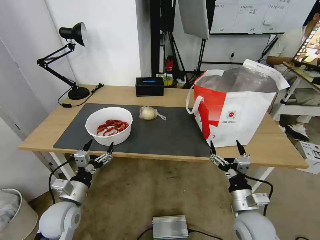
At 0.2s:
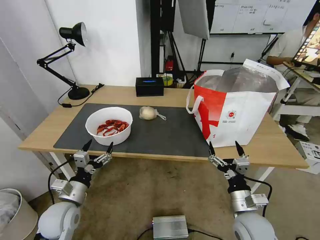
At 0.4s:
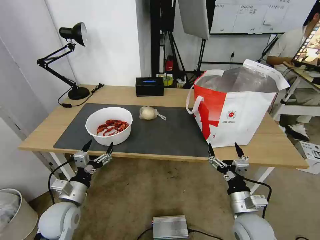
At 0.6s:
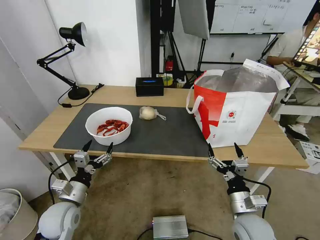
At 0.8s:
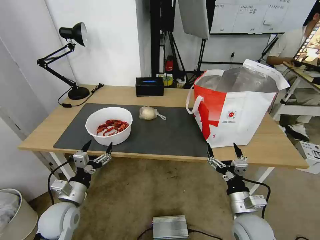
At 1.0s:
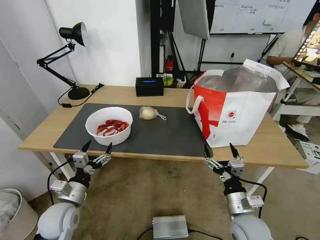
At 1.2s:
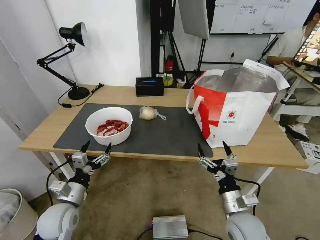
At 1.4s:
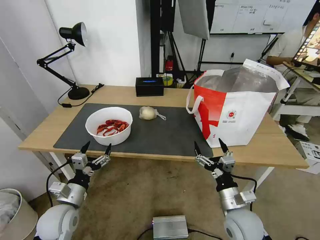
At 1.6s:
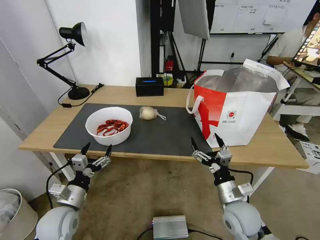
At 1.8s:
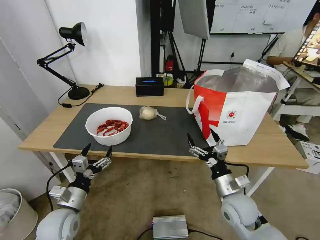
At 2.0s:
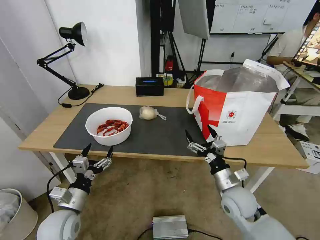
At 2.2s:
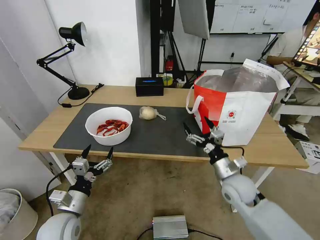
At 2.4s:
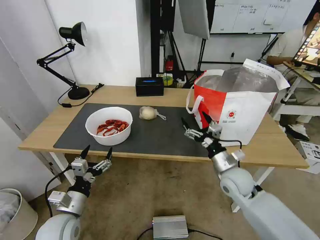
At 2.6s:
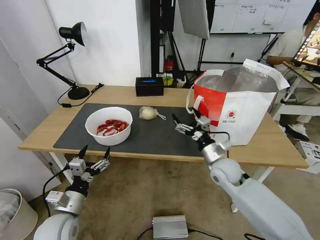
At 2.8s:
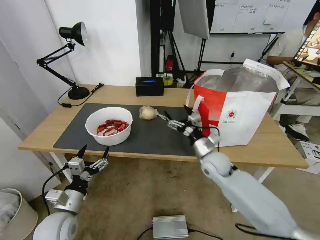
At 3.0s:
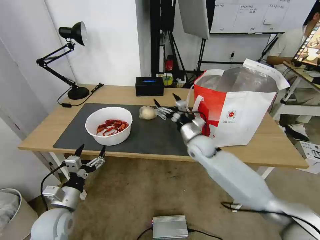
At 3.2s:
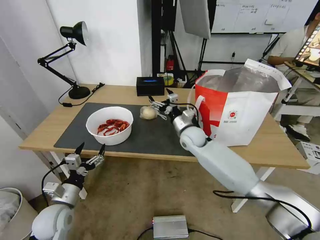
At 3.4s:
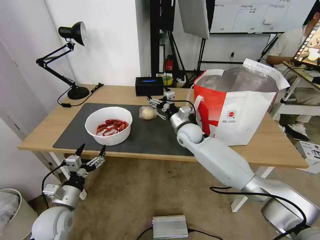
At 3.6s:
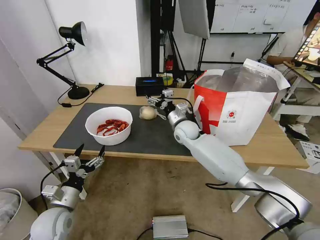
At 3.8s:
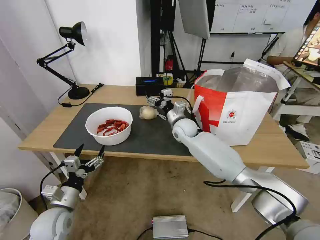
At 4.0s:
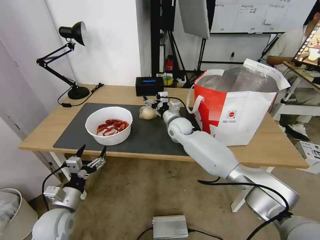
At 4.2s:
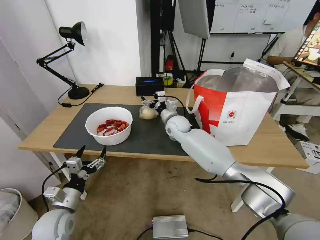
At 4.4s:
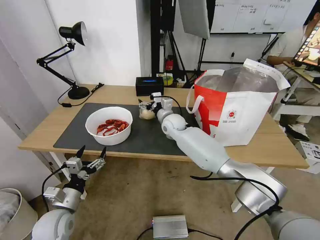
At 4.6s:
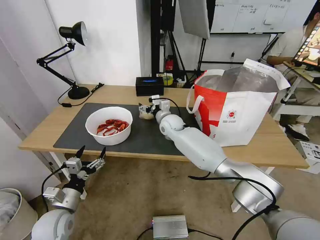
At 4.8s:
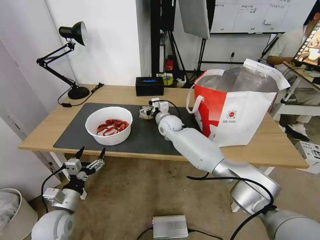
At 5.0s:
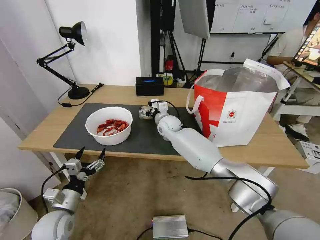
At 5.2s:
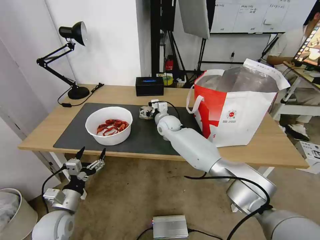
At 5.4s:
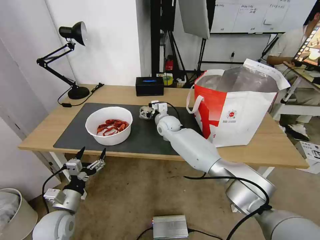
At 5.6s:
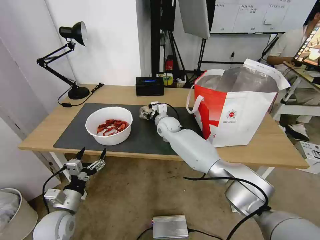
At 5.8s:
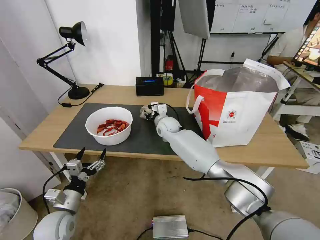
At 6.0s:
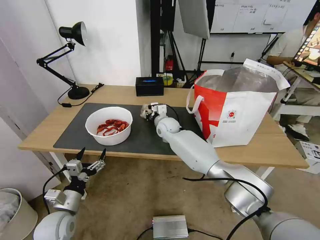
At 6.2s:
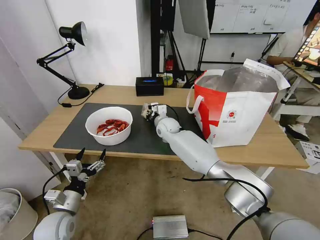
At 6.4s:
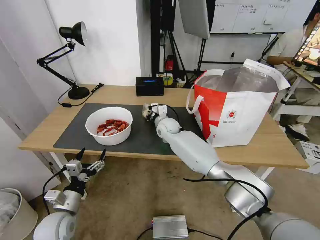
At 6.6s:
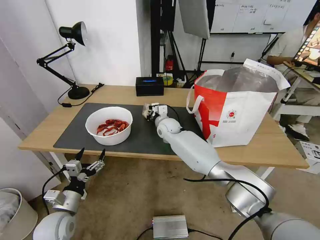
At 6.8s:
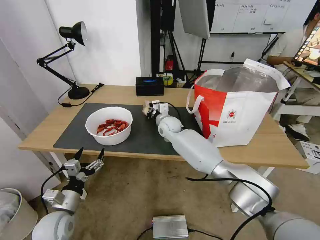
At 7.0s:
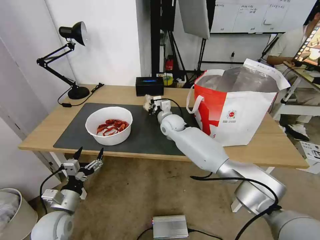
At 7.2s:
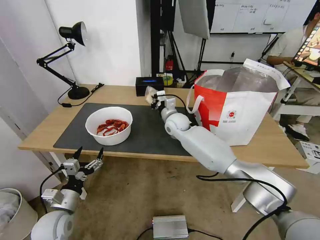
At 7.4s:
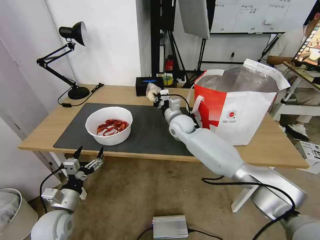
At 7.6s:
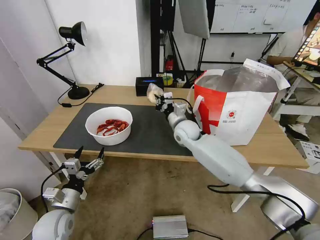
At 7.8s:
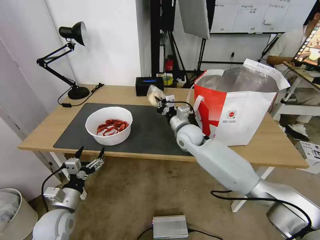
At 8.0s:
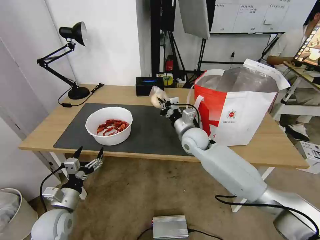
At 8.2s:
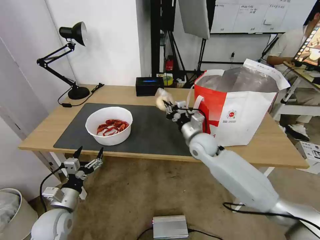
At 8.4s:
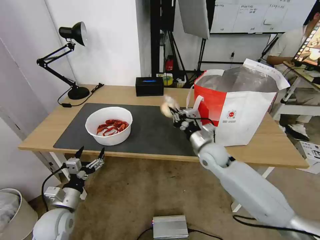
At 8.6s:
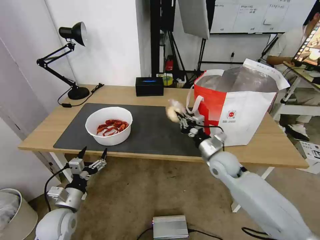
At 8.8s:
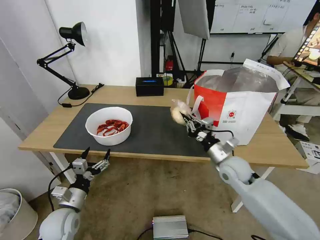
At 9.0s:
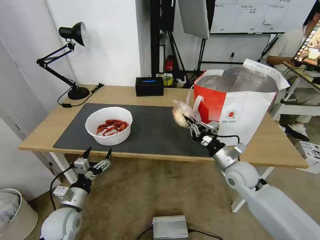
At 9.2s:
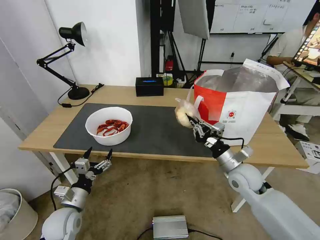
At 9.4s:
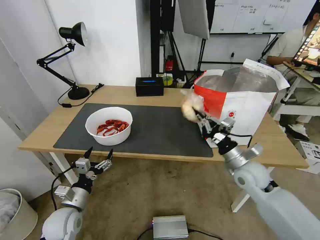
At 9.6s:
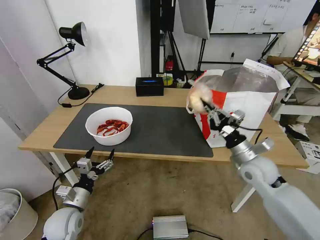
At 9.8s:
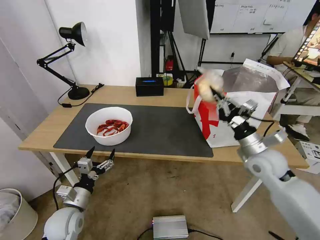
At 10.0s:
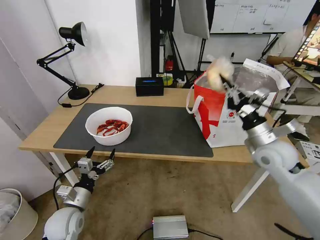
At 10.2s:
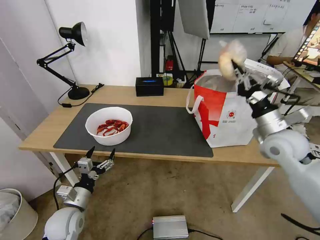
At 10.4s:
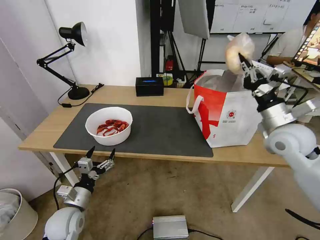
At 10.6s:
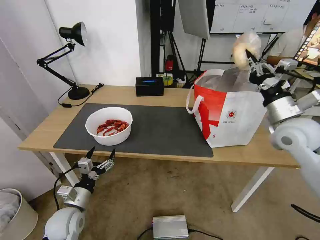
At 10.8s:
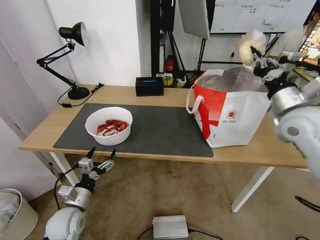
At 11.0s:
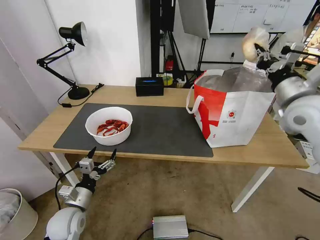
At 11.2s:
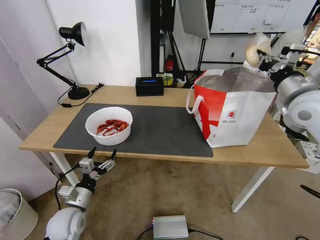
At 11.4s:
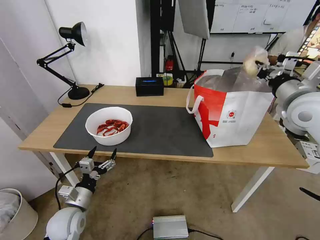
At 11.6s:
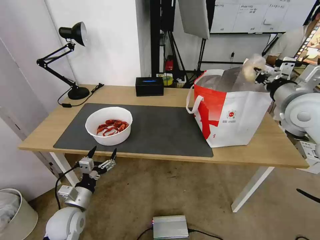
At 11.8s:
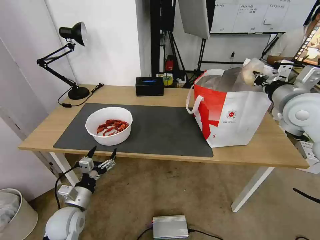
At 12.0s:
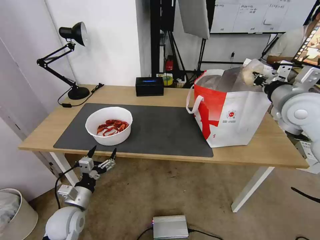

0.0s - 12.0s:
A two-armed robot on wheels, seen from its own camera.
Task of the whole recording: Pick up the trash from the table and place it into the takeout bag.
0.0s - 1.6s: The grippers make only small movements.
1.6s - 3.0s: The right gripper goes some 20 cm forward.
3.0s - 4.4s: The right gripper shifts roughly 15 cm forward and to the left.
4.4s - 6.0s: The right gripper closes up.
6.0s - 7.6s: The right gripper shifts about 10 cm to the right and backward.
7.6s - 9.0s: The right gripper is displaced to the right and backward by approximately 25 cm.
9.0s - 10.4s: The right gripper shifts approximately 20 cm upward and to the right.
10.4s - 12.0s: The right gripper heads upward, covering about 10 cm.

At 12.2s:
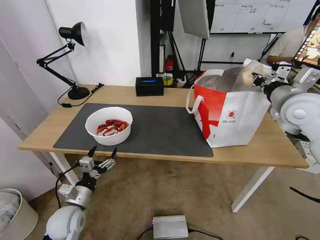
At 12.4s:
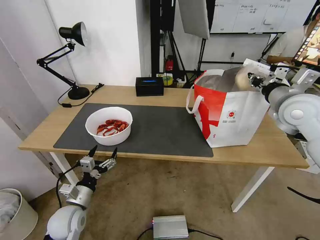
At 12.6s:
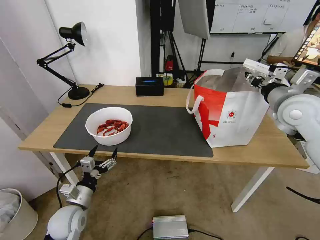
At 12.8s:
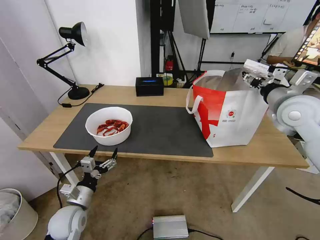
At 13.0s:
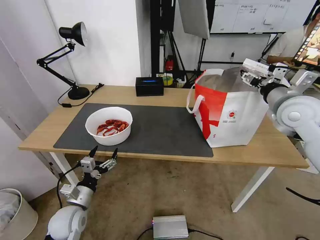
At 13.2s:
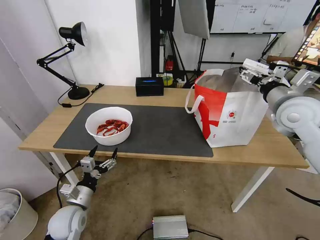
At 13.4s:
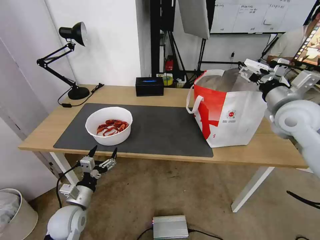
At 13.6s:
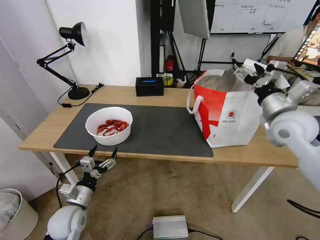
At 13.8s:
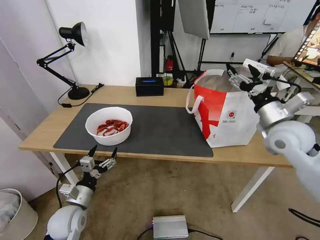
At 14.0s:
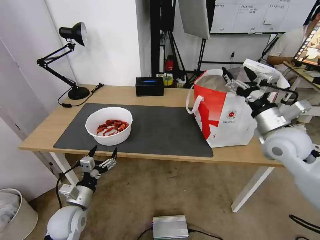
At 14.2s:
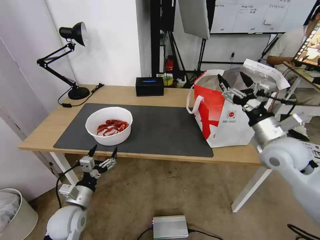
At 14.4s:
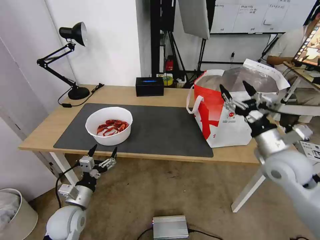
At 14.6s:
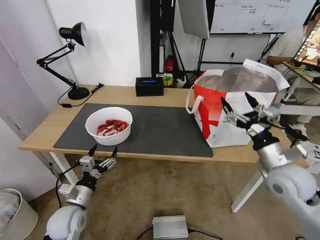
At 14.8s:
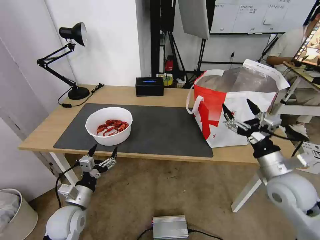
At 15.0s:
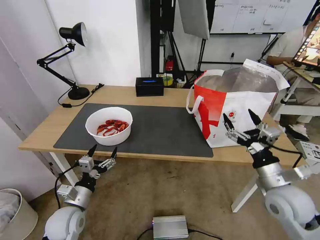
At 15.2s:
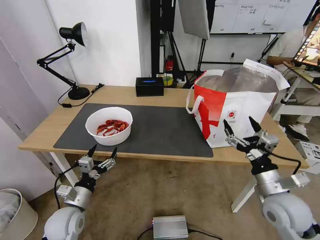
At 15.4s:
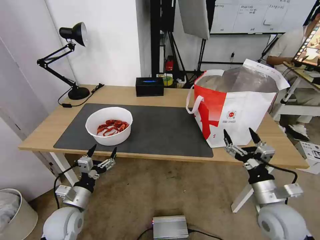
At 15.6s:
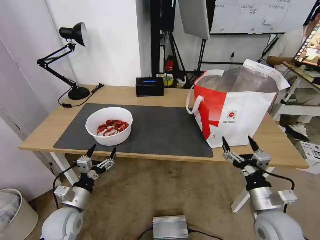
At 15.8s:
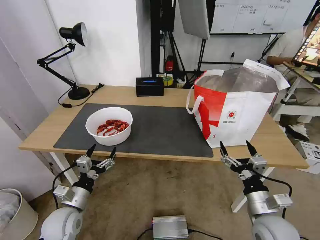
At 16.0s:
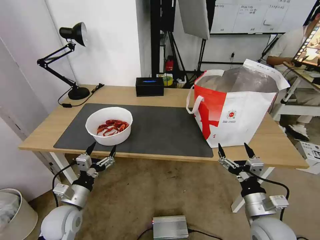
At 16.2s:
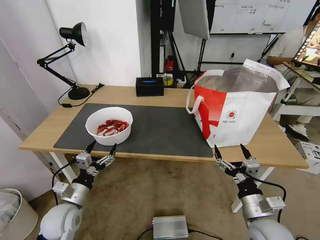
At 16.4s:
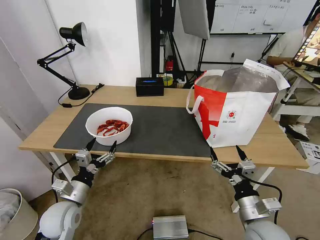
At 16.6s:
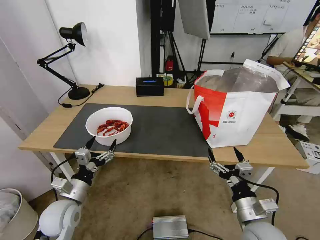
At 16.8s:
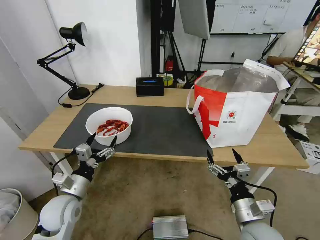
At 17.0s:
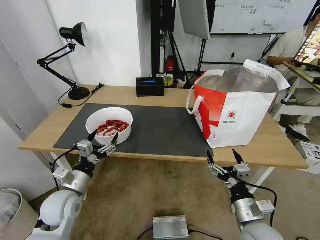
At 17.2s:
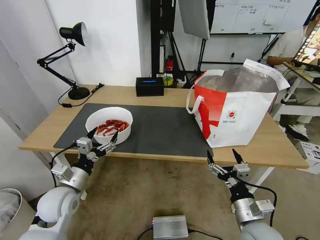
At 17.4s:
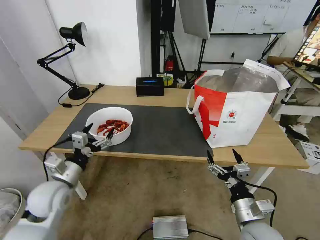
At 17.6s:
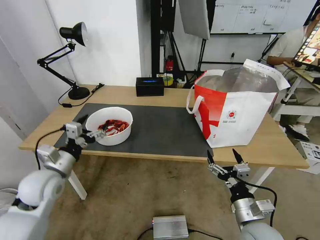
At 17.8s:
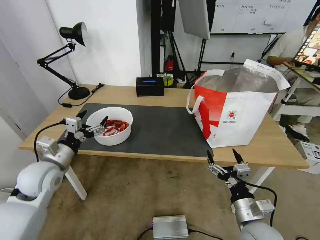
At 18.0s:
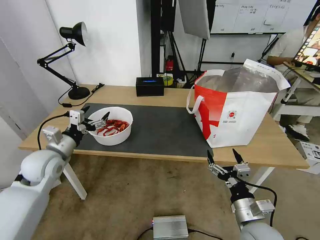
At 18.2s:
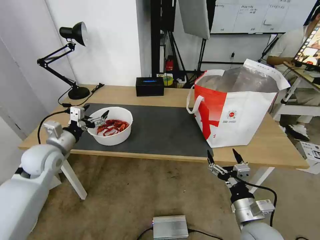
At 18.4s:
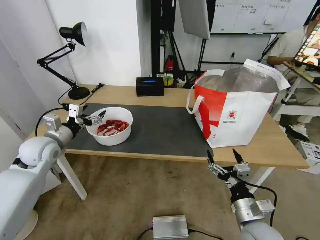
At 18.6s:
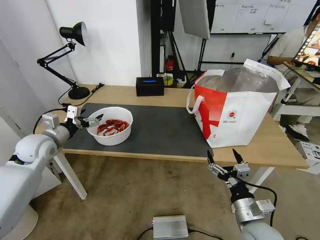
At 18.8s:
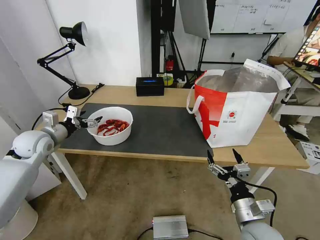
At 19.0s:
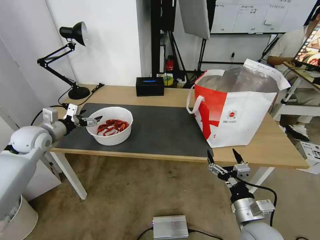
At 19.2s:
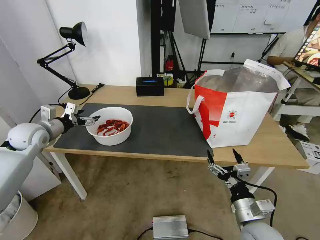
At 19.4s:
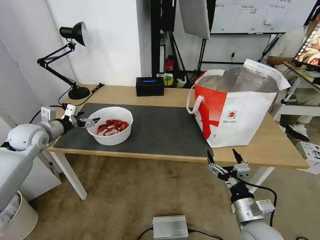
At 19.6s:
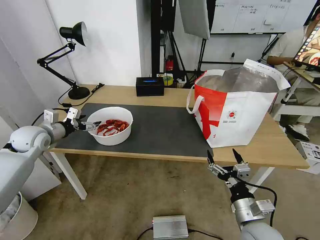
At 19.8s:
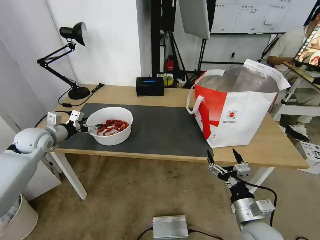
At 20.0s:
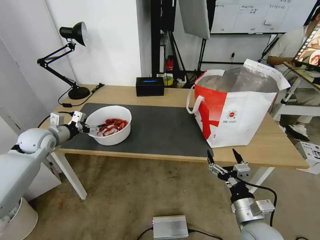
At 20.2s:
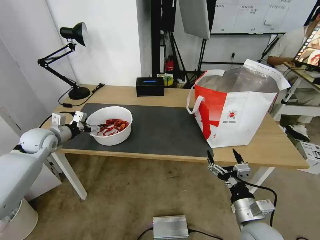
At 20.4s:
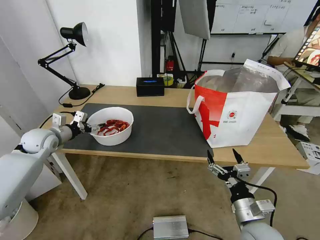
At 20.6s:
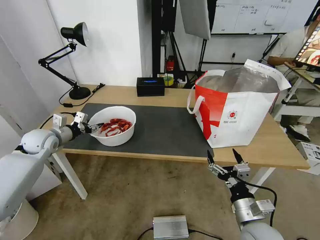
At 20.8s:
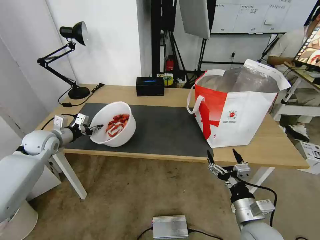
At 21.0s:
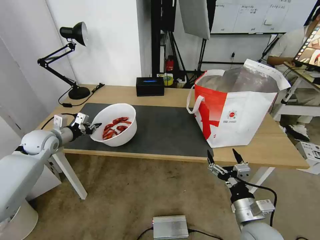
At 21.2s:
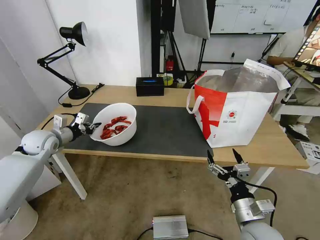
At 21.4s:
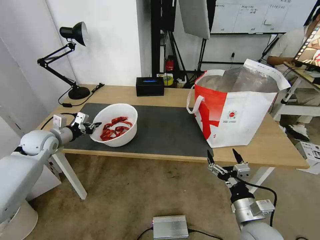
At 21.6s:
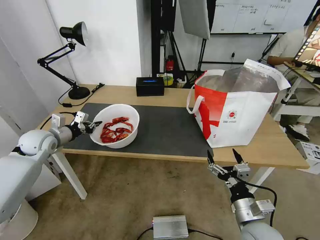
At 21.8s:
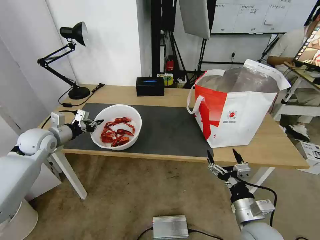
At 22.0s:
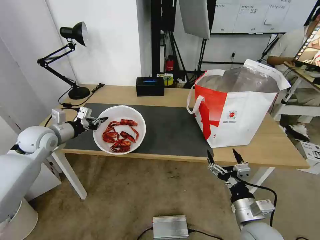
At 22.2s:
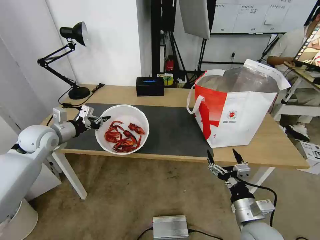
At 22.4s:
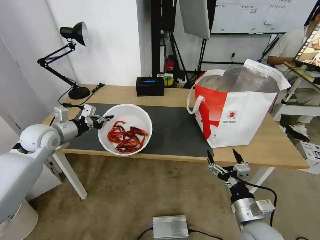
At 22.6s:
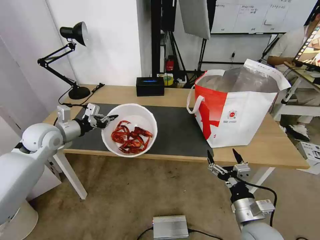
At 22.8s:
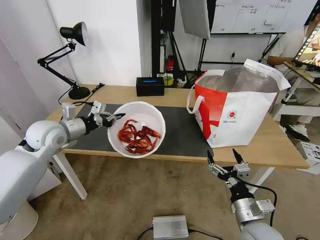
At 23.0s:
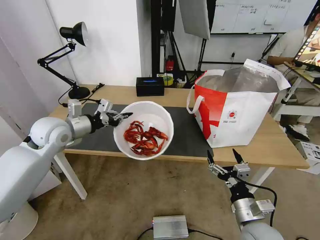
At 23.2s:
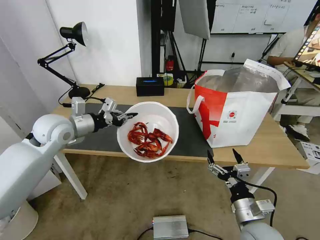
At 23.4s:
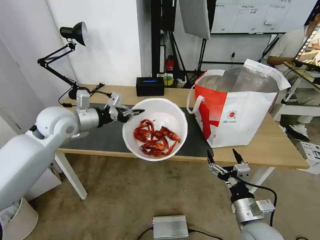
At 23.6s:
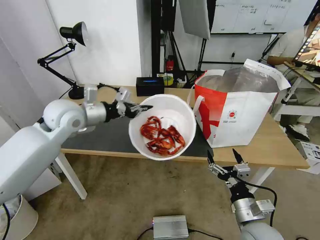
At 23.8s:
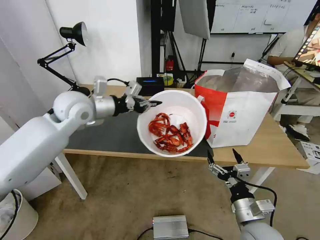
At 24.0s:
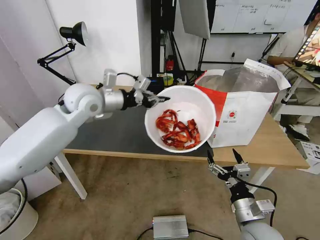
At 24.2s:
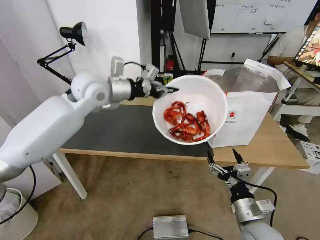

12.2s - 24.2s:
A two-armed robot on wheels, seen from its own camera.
Task of the whole recording: Pick up the trash from the table and place it into the takeout bag.
12.2s - 13.8s: The right gripper moves downward, some 5 cm, and opens.
13.8s - 15.2s: The right gripper travels backward and downward by some 20 cm.
15.2s - 16.6s: The right gripper moves to the left and backward, roughly 10 cm.
16.6s - 18.2s: The left gripper moves forward, upward and to the left, roughly 20 cm.
18.2s - 19.8s: The left gripper shifts approximately 10 cm forward and to the left.
19.8s - 21.2s: The left gripper closes up.
21.2s - 22.6s: The left gripper heads upward and to the right, covering roughly 10 cm.
22.6s - 24.2s: The left gripper shifts approximately 20 cm to the right and upward.
